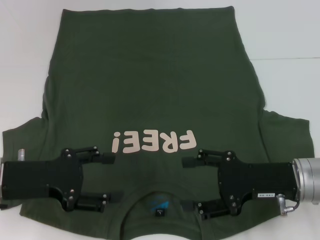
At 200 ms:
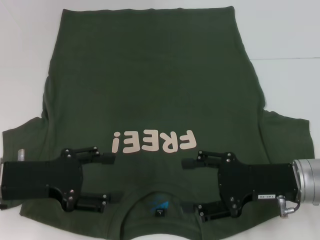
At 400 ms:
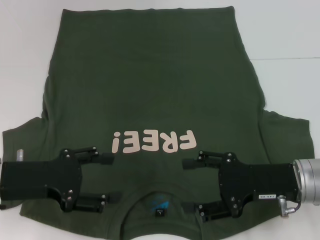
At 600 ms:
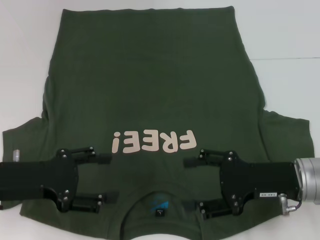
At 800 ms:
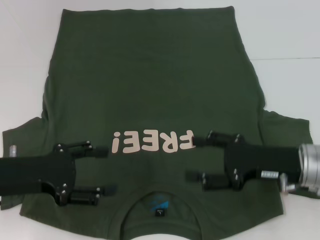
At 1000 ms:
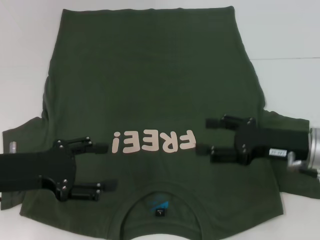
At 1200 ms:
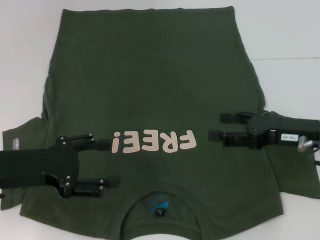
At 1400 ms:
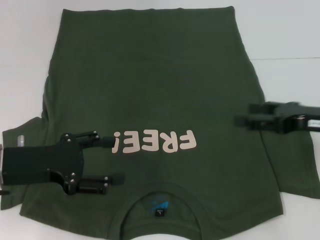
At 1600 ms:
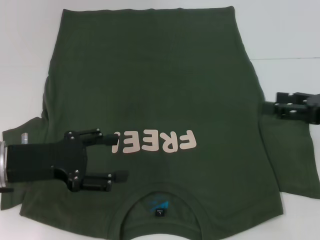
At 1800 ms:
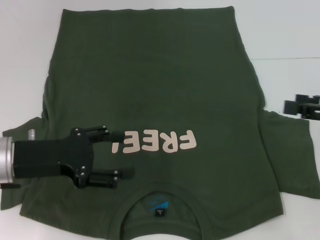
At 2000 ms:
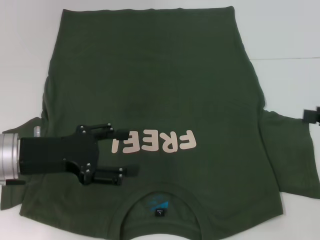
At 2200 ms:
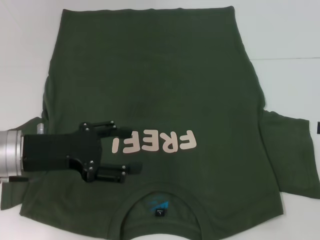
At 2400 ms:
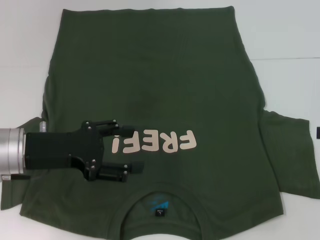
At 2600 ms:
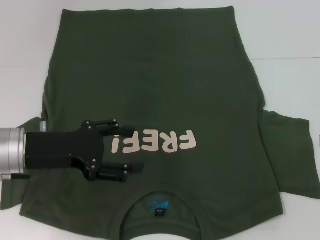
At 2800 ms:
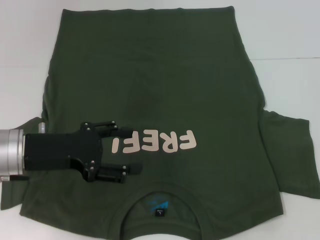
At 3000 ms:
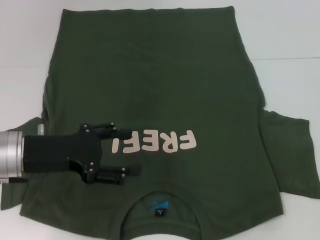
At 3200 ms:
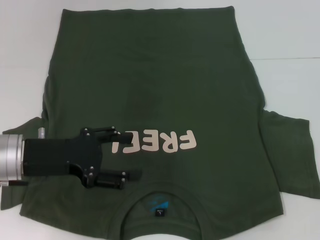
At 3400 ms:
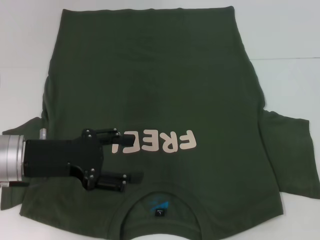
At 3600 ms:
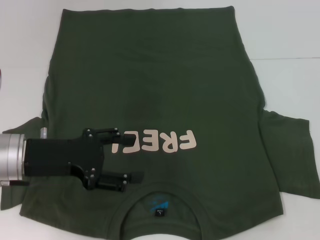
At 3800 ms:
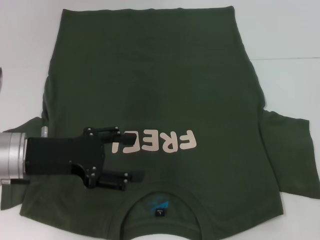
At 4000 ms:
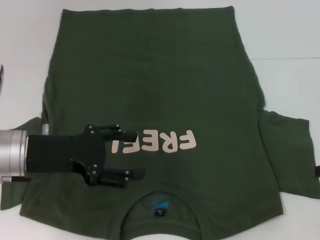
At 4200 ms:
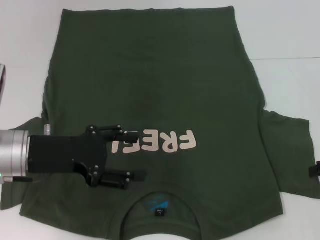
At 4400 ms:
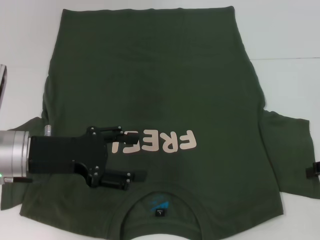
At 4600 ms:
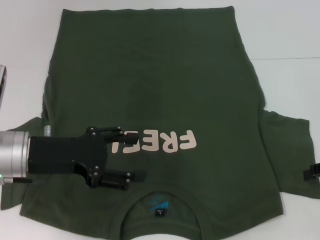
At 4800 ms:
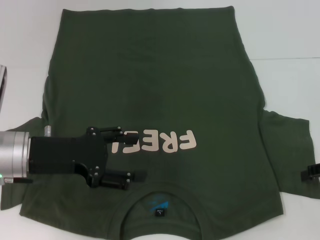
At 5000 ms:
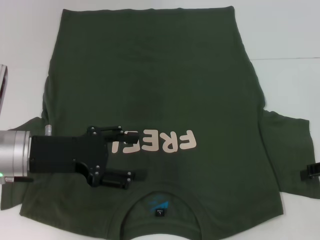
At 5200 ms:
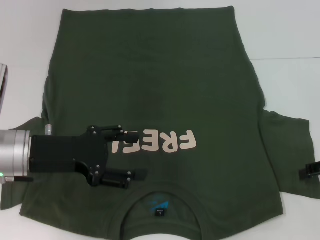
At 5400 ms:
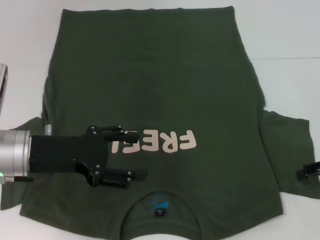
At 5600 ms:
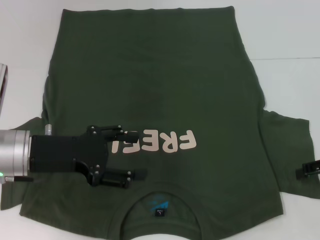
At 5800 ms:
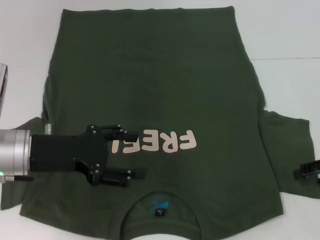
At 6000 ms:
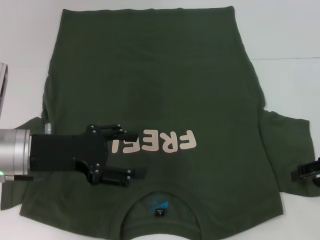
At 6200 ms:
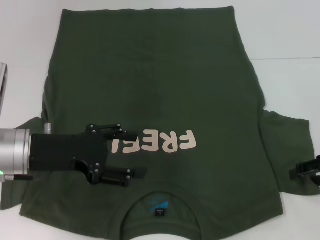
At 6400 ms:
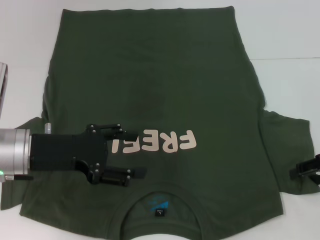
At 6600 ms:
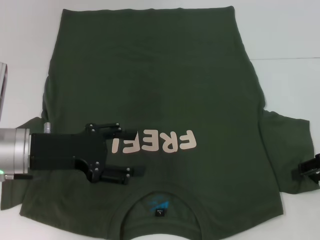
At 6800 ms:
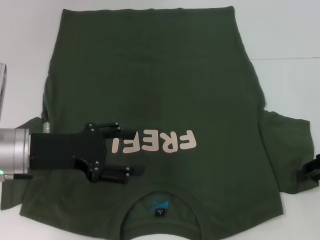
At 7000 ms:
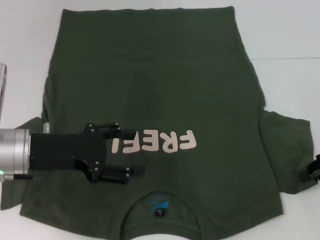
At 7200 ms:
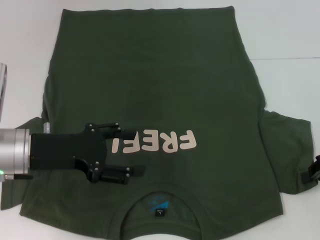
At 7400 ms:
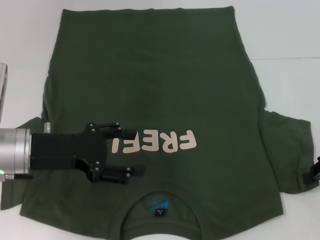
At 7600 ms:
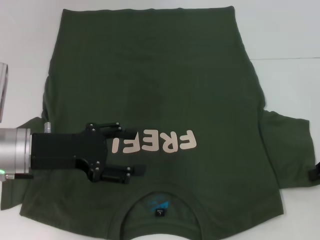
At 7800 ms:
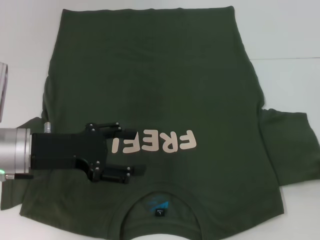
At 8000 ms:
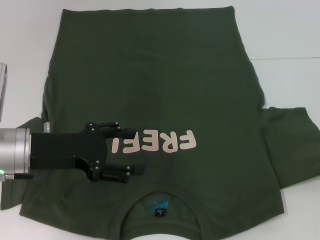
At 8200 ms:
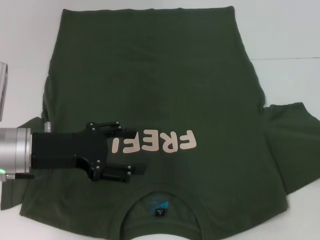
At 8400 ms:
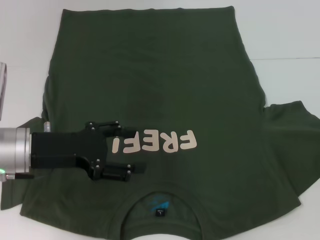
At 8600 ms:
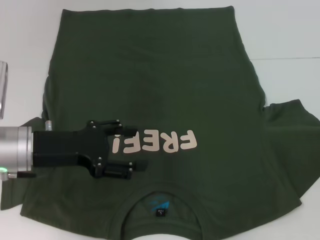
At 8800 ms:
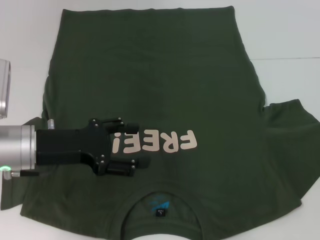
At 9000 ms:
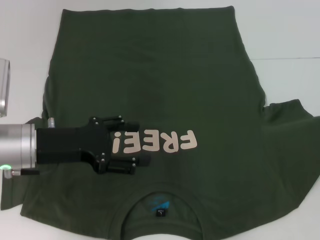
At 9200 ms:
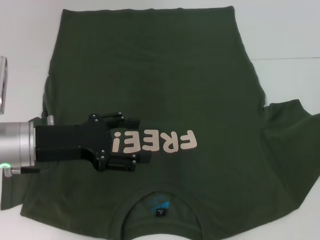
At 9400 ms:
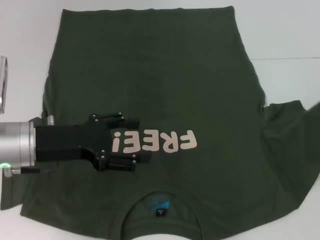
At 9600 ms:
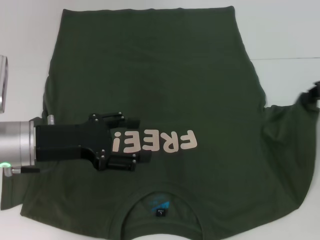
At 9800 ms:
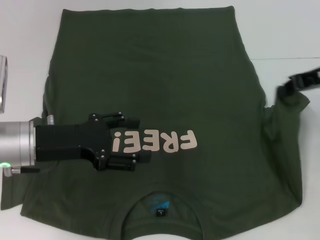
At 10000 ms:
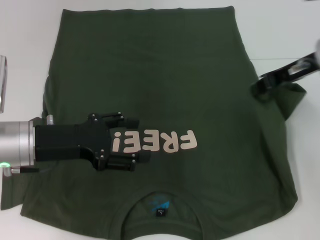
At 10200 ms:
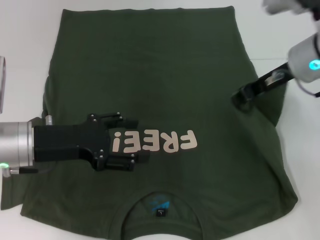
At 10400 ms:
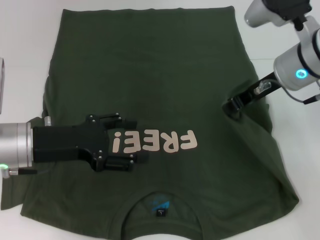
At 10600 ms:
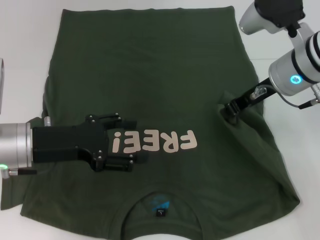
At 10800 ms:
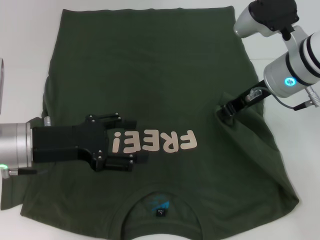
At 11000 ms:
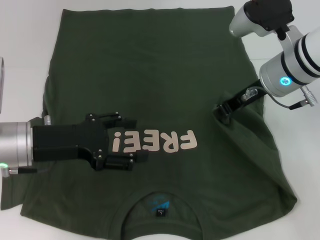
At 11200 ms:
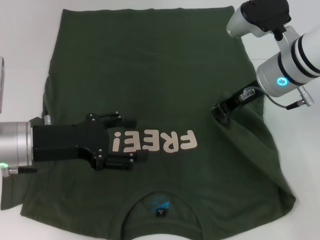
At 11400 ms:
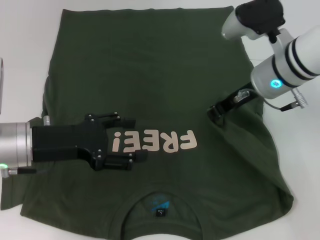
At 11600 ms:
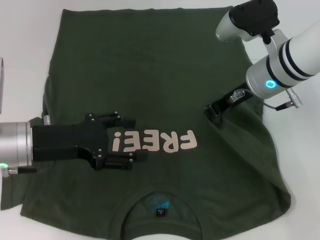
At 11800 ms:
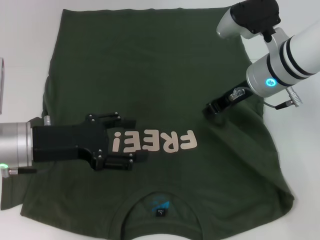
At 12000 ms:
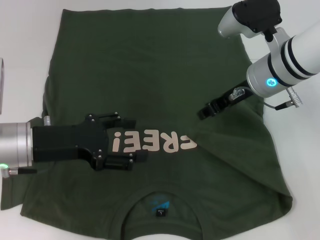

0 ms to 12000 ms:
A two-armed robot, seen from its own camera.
0 ms to 1600 ms: The right gripper heads to the right and upward, covering approximately 15 cm.
1600 ms to 3000 ms: The right gripper moves to the right, some 5 cm.
3000 ms to 4400 ms: The right gripper goes some 5 cm downward.
4400 ms to 6000 ms: There are only small adjustments of the grippers.
6000 ms to 7600 ms: The right gripper closes its fingers.
7600 ms to 9000 ms: The right gripper changes place by about 5 cm.
9000 ms to 10400 ms: The right gripper shifts some 20 cm to the left.
10400 ms to 12000 ms: There are only small adjustments of the grippers.

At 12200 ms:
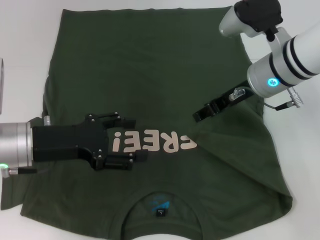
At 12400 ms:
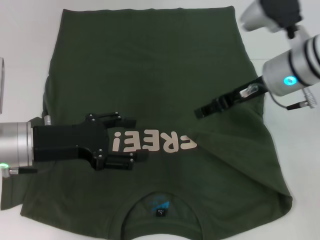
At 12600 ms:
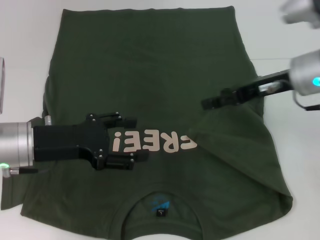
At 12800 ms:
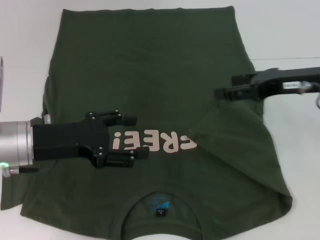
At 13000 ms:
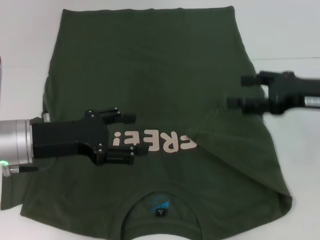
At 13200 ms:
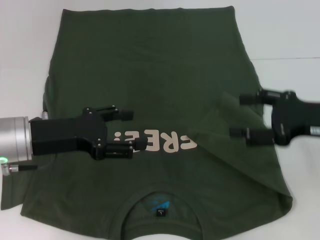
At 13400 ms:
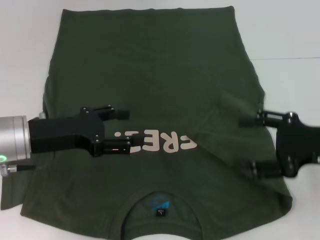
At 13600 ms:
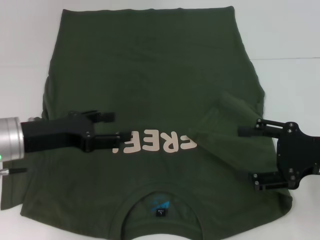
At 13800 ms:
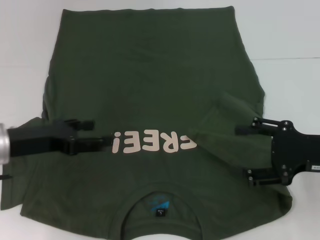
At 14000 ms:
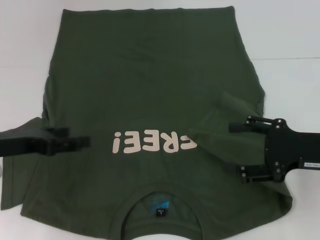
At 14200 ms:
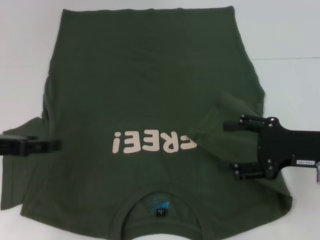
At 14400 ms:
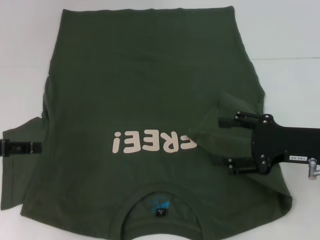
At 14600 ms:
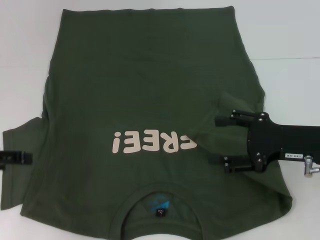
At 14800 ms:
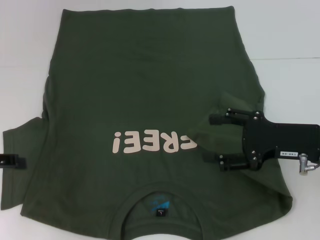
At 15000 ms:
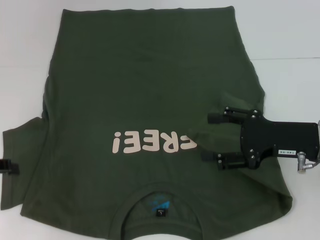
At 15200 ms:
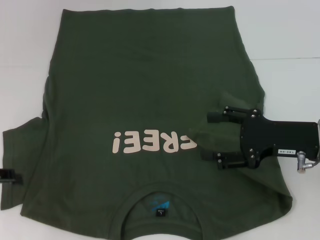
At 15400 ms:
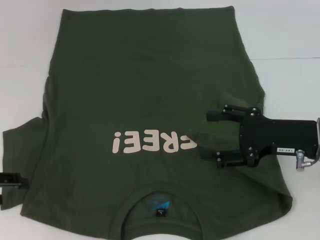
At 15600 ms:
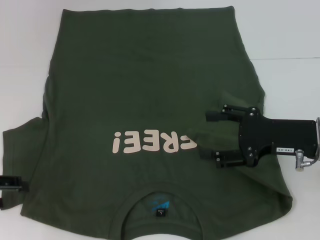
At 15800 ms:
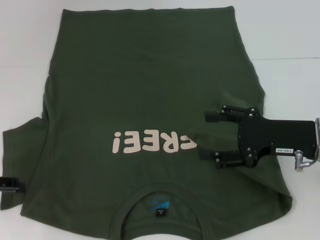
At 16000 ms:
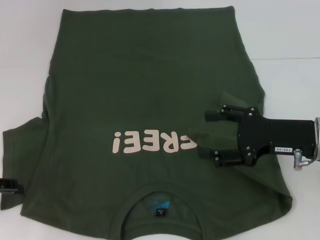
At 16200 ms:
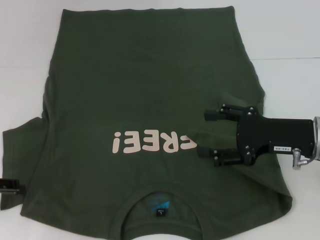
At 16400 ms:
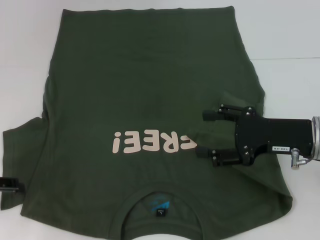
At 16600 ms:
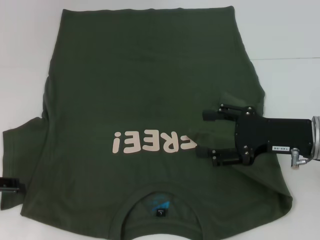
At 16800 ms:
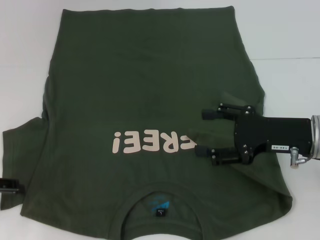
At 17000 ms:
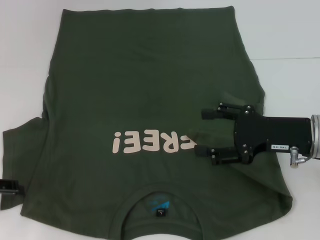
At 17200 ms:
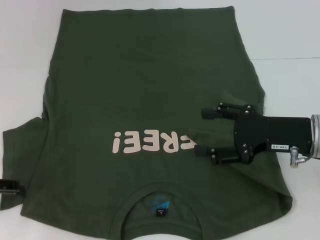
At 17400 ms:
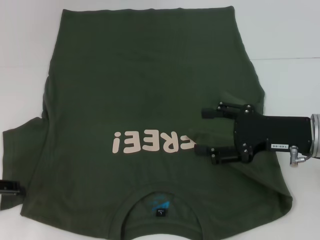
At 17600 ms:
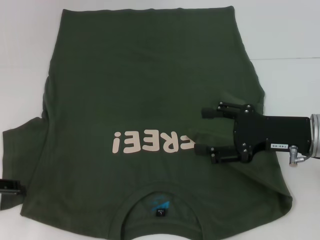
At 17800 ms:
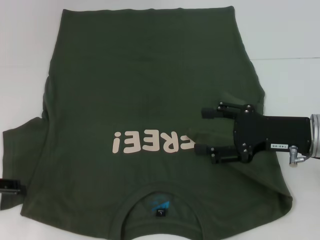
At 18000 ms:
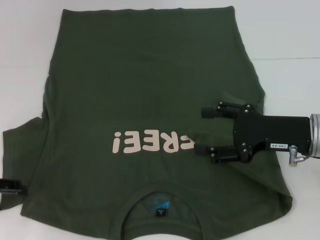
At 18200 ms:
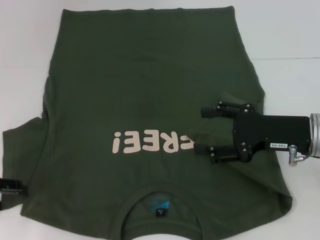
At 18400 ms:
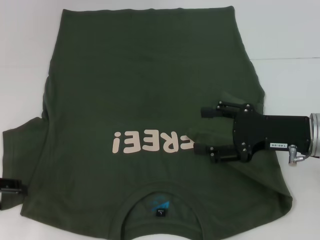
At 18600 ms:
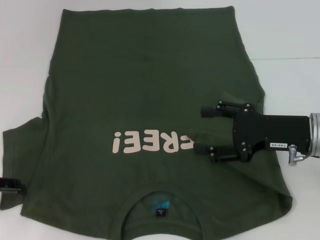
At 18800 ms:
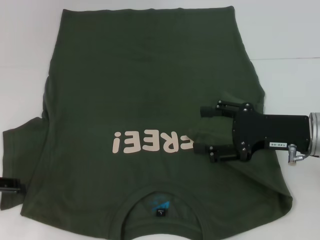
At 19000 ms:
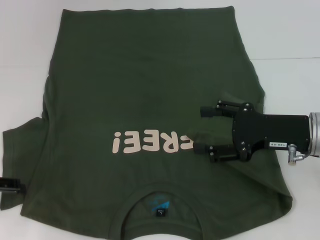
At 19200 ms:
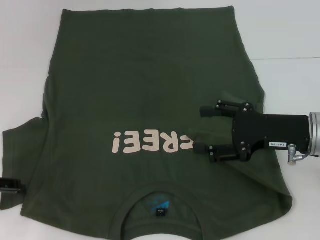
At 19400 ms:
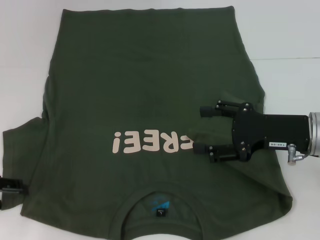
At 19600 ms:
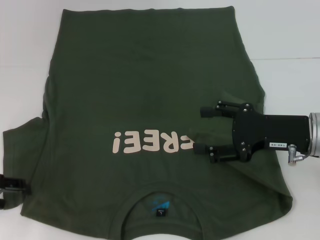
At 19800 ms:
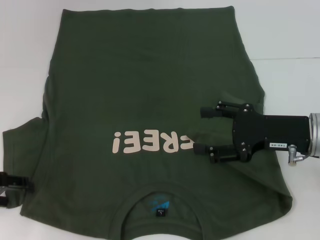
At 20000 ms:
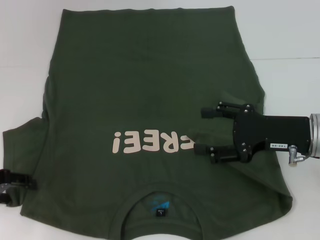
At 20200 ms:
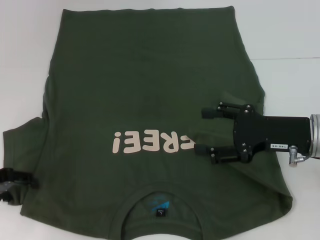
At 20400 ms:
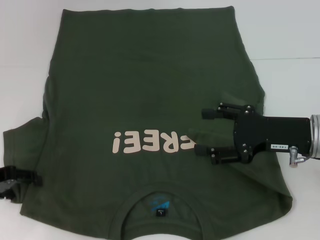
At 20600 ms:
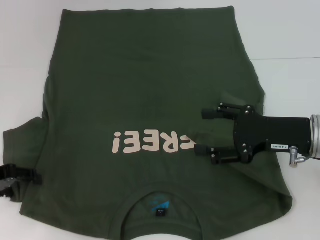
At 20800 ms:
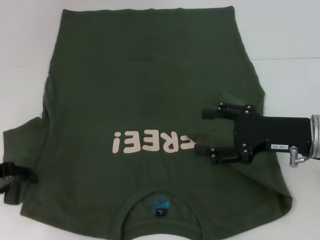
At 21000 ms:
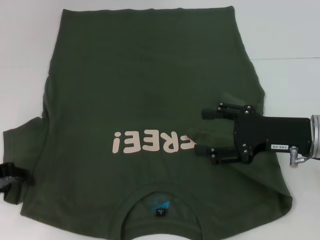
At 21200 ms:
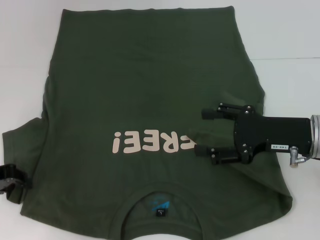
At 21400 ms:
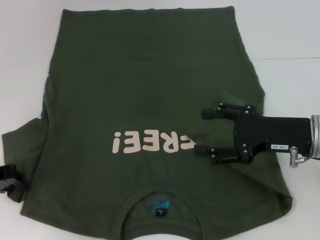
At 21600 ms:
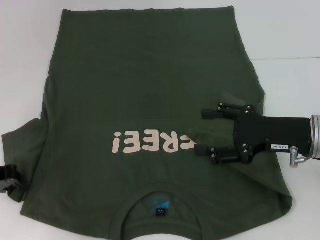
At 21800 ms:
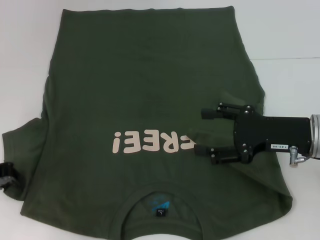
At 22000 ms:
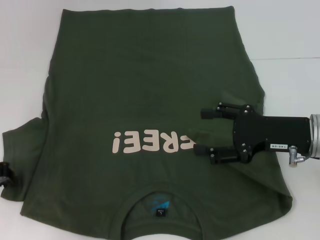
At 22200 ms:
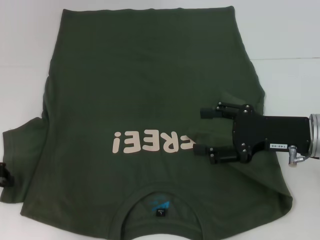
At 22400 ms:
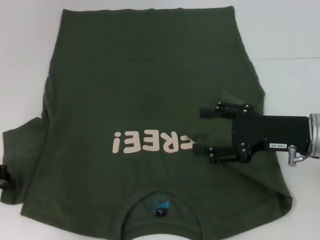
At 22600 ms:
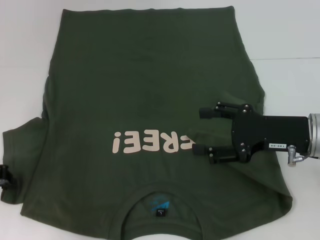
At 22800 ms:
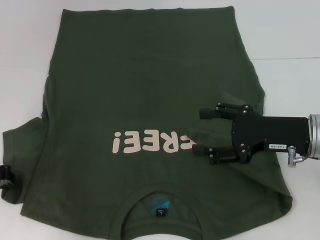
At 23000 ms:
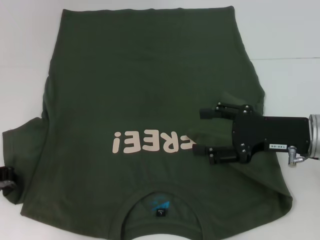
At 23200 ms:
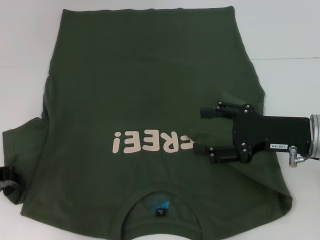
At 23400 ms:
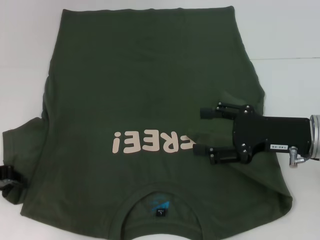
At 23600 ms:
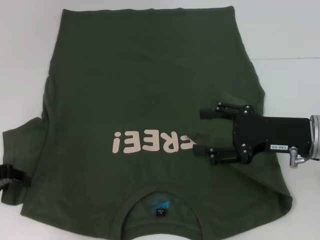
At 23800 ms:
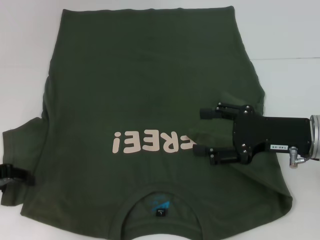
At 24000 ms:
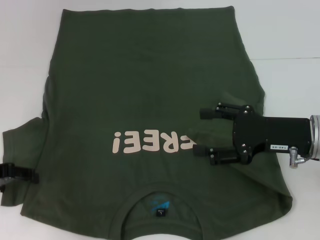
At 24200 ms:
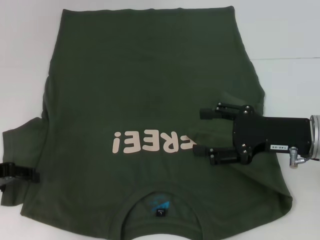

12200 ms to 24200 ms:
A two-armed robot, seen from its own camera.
12200 ms to 13800 ms: The right gripper is displaced backward and to the right by some 20 cm, and opens its fingers.
13800 ms to 15200 ms: The left gripper goes about 10 cm to the left.
15200 ms to 16600 ms: The grippers move only a little.
16600 ms to 18200 ms: The two grippers keep their place.
18200 ms to 19800 ms: Both grippers stay about where they are.
19800 ms to 21200 ms: The grippers move only a little.
21200 ms to 22600 ms: The left gripper closes its fingers.
22600 ms to 24200 ms: The left gripper opens.
